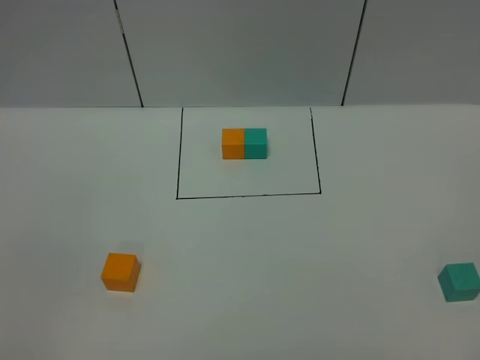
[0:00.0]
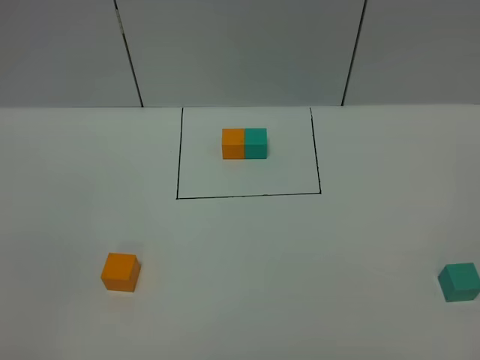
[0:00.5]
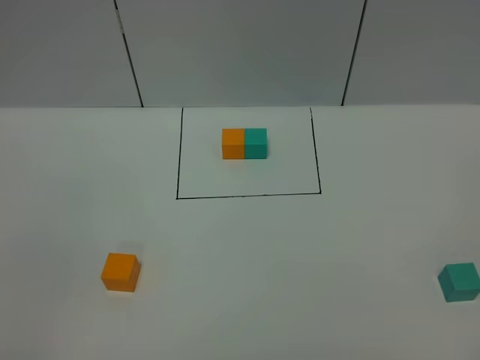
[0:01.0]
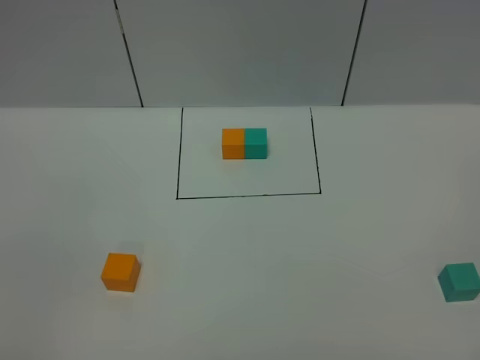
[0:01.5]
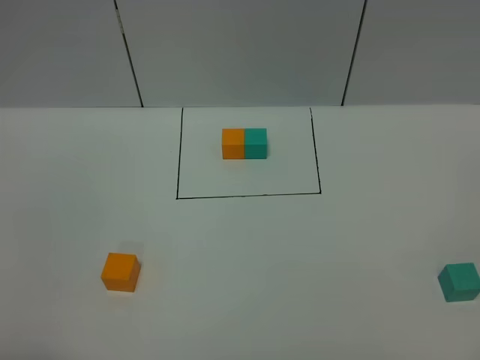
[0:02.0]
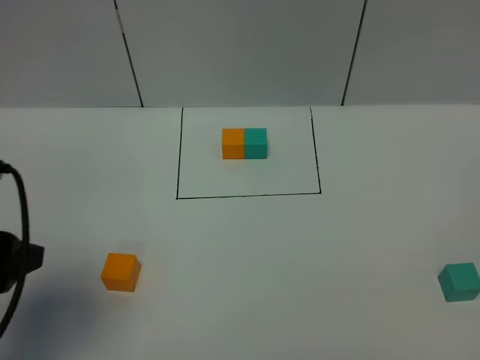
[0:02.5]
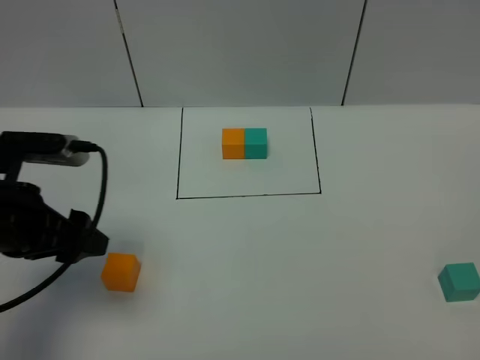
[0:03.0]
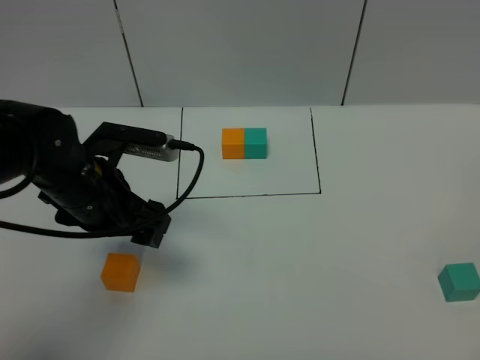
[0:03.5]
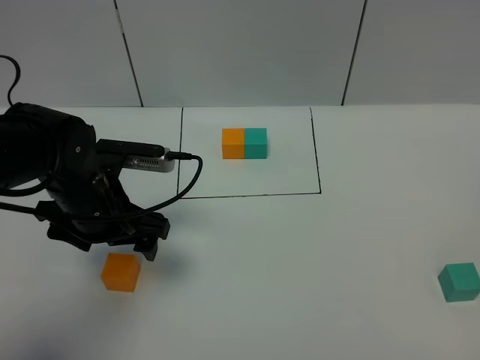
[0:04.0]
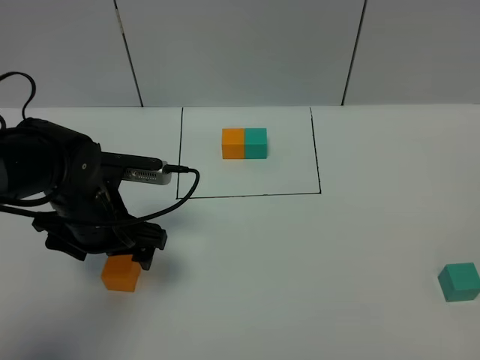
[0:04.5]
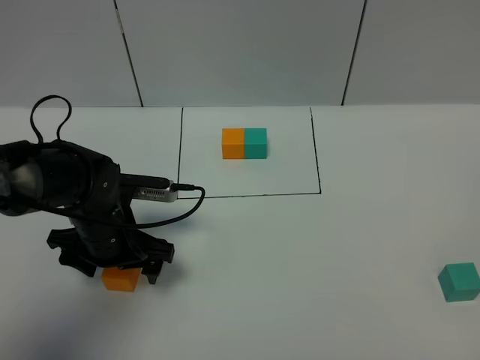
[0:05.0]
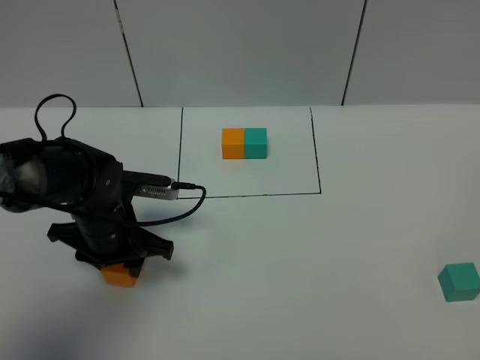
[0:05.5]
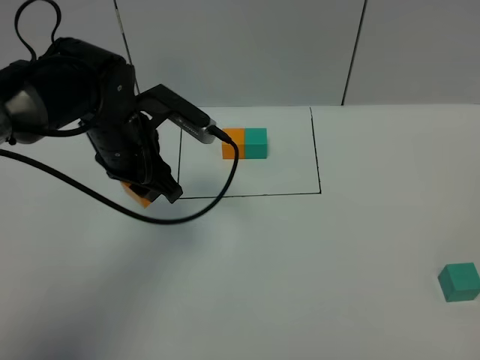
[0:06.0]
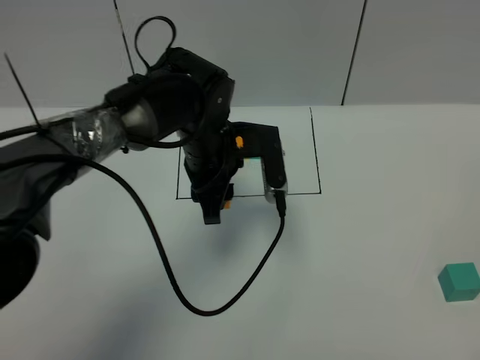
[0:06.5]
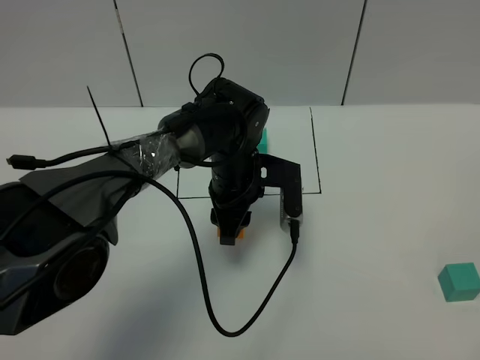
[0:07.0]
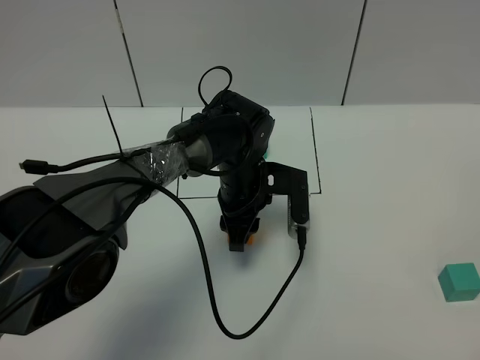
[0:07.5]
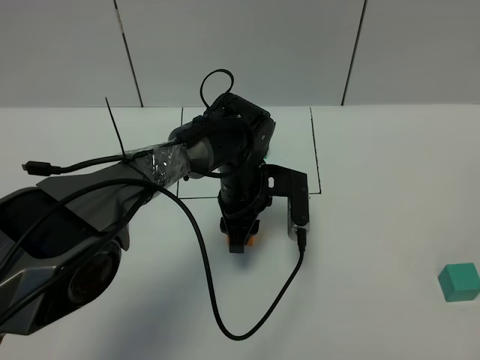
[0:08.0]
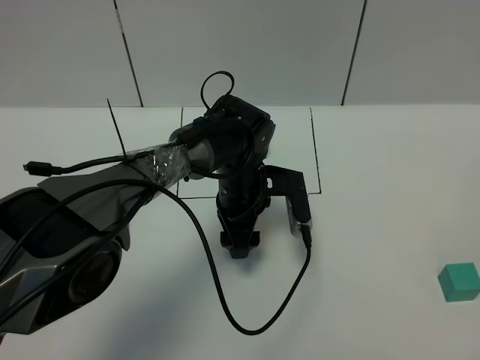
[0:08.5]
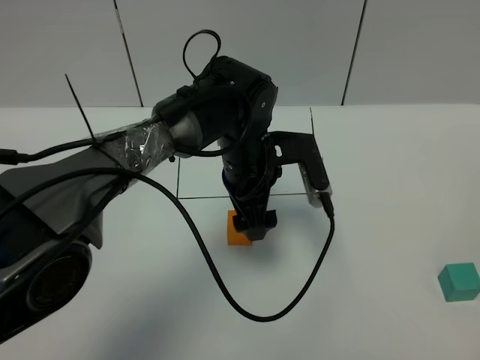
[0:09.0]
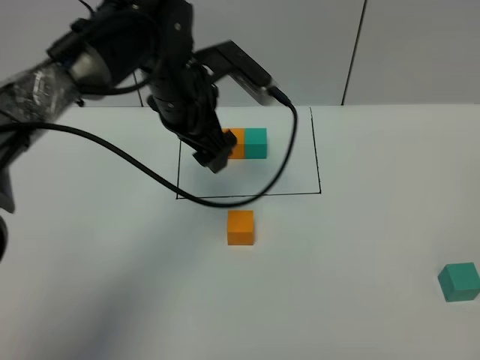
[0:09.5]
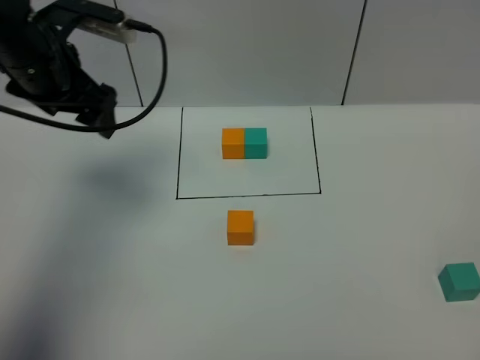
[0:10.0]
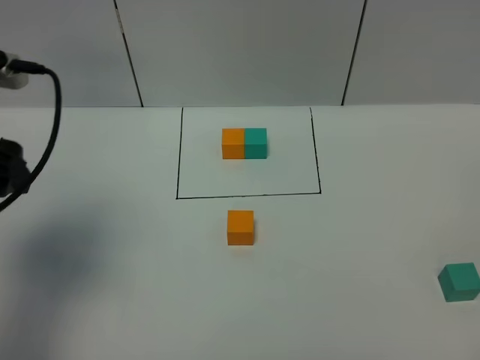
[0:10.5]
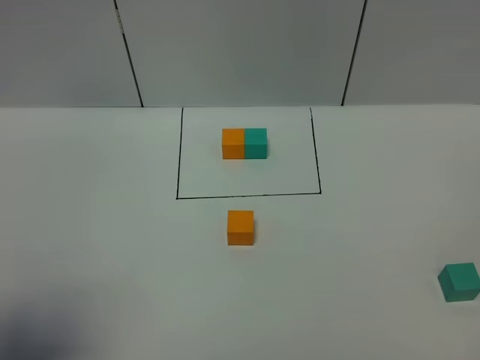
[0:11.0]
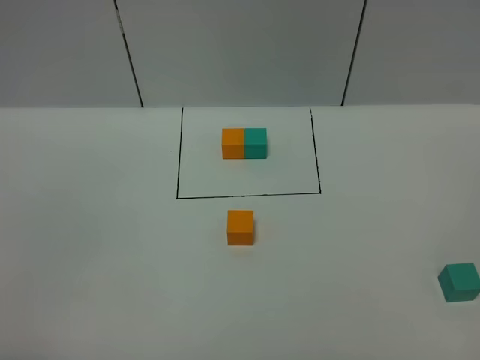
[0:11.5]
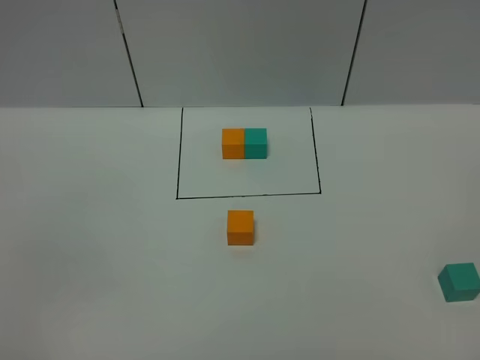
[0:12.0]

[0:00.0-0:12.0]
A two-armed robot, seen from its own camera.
Task of the whole recording: According to the building block template in front, assemble the scattered blocks together.
Step, 0:02.5 to 0:08.5: Put the orange cube in the center of the table.
0:02.0 to 0:04.0: The left gripper shifts some 30 cm forward, to the right and downward.
0:04.0 to 0:06.0: The left gripper heads forward, covering approximately 5 cm, and closes its fingers.
0:06.0 to 0:08.0: The left gripper shifts about 15 cm to the right and downward.
0:08.0 to 0:10.0: The left gripper heads to the left and upward, covering approximately 30 cm, and opens its fingers.
0:10.0 to 0:12.0: The left gripper heads backward, covering some 40 cm.

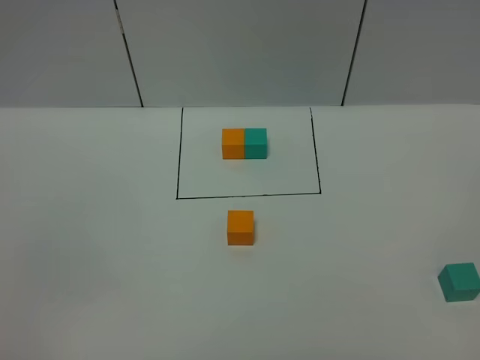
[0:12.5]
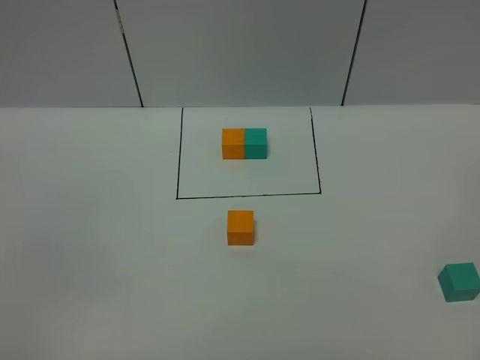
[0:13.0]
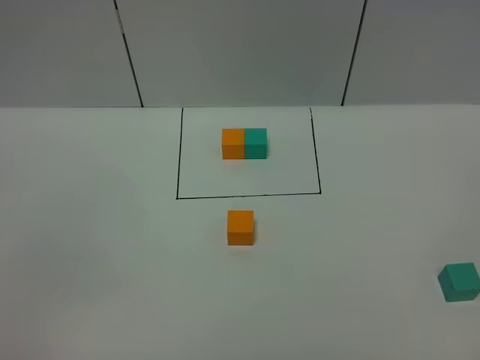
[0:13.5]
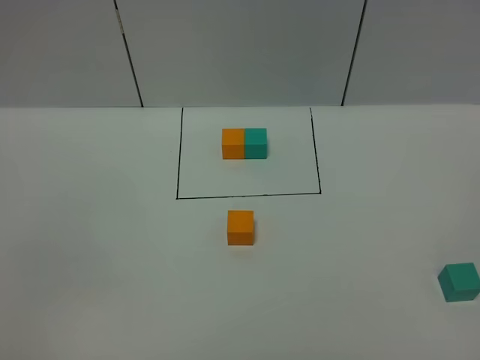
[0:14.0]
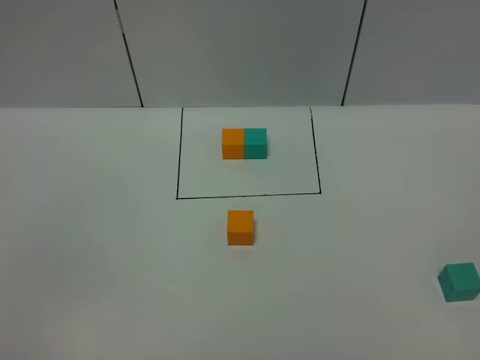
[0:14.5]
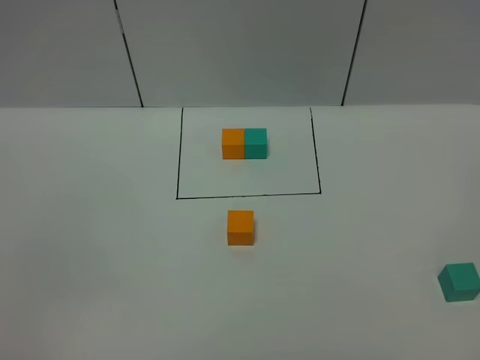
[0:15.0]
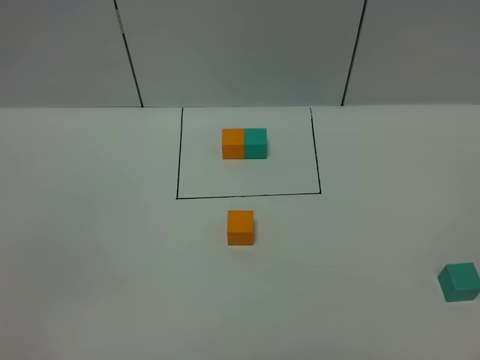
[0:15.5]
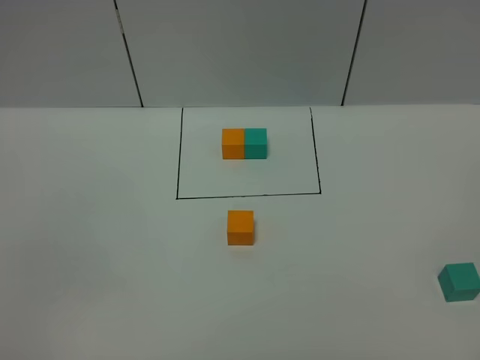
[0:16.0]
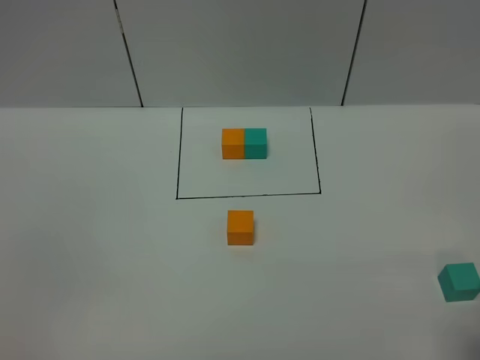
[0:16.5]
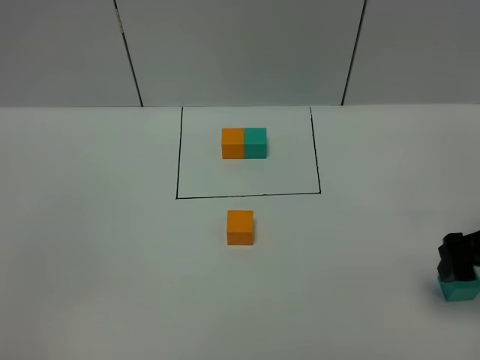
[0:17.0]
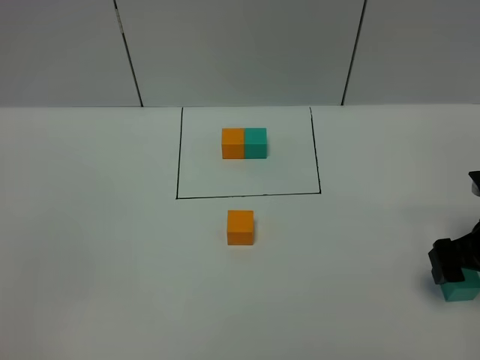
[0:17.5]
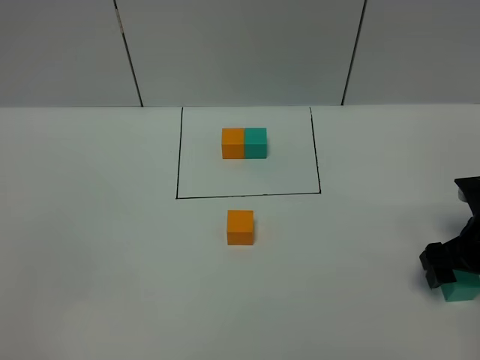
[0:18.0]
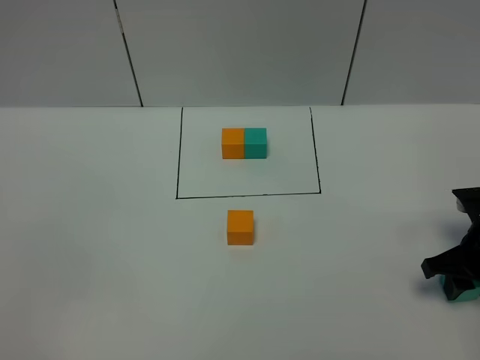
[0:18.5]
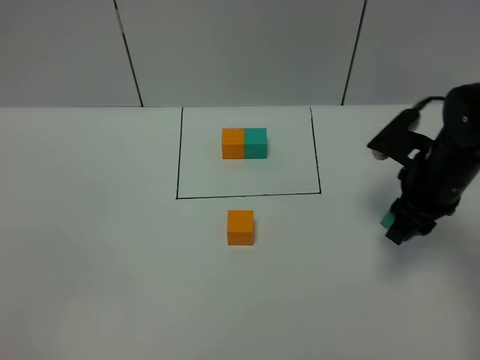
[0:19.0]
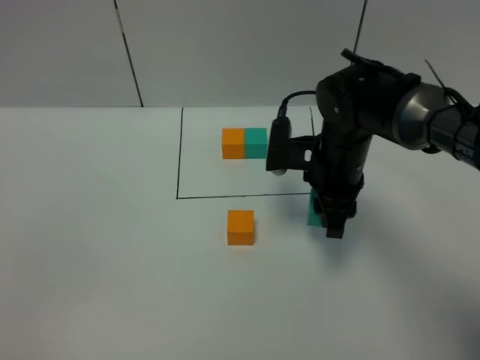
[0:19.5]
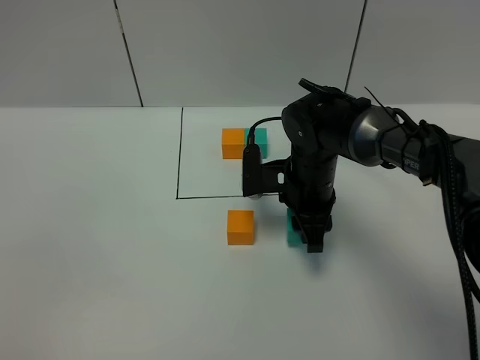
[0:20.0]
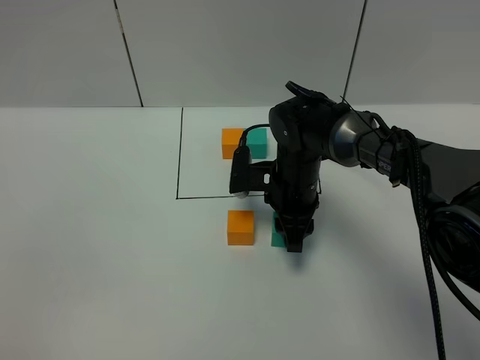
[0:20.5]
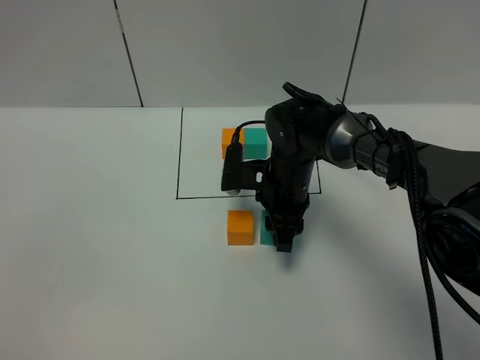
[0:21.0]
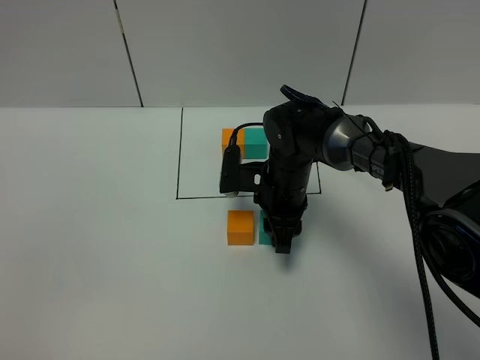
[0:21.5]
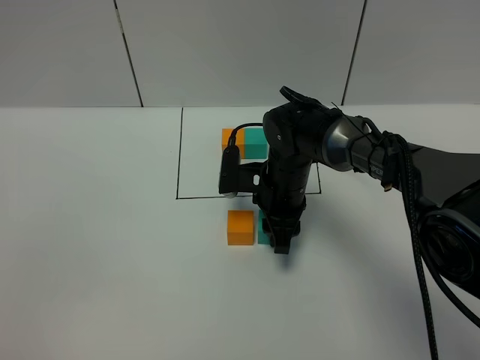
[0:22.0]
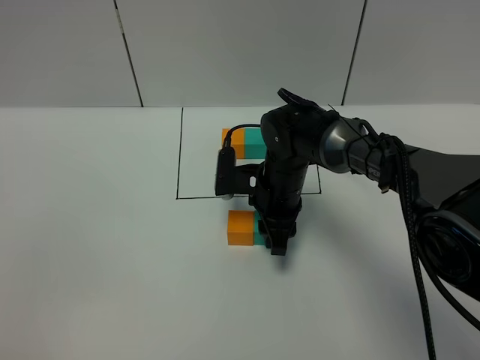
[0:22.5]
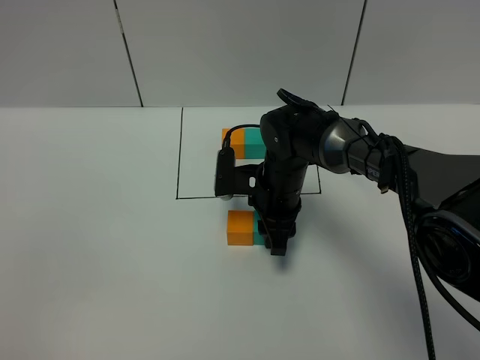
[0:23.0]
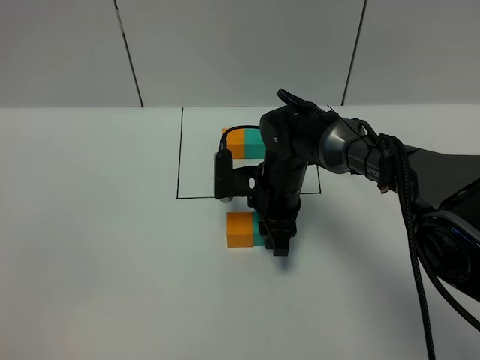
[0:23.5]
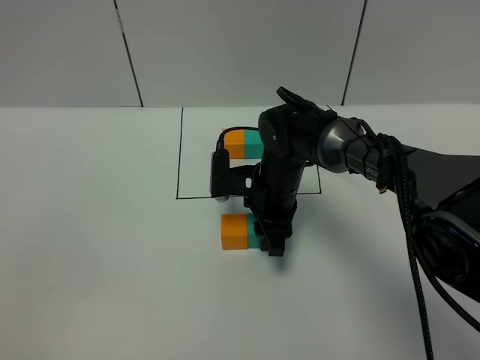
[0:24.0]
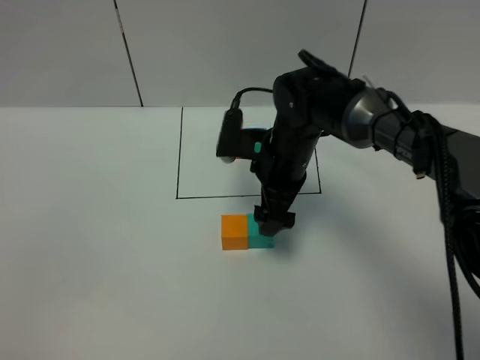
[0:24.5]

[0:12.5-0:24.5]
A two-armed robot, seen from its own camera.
Task of the whole recording: According to the building block template in front, assemble the scattered blocks together.
Step, 0:12.5 to 0:24.0: Put the green cube on the right of the orange cube.
0:12.5 to 0:14.5: Neither gripper changes place.
0:16.5 to 0:18.5: The right gripper travels downward and forward by roughly 20 cm, and closes.
0:18.5 to 0:20.5: The right gripper goes some 25 cm to the left and forward.
0:20.5 to 0:22.5: The grippers move only a little.
0:22.5 to 0:24.5: The right gripper shifts about 5 cm upward, and opens up.

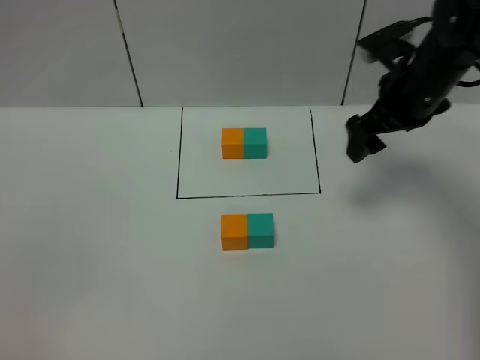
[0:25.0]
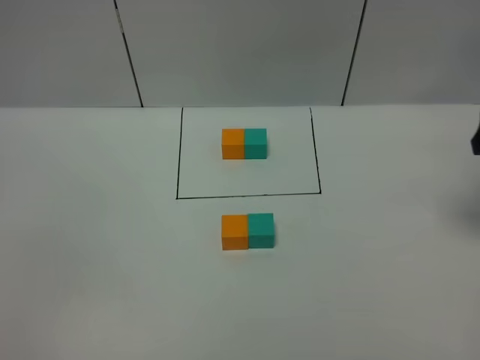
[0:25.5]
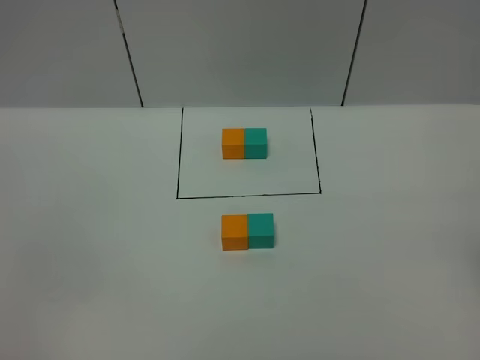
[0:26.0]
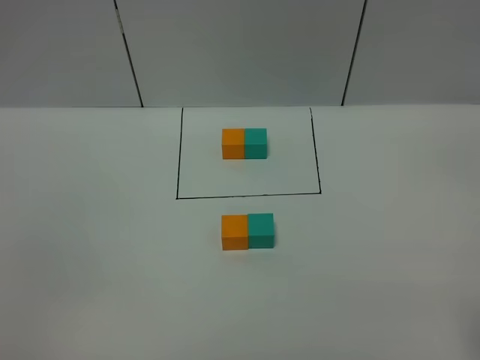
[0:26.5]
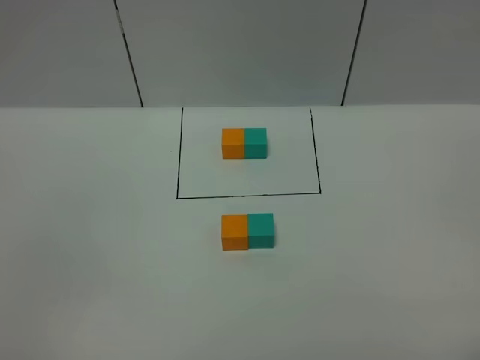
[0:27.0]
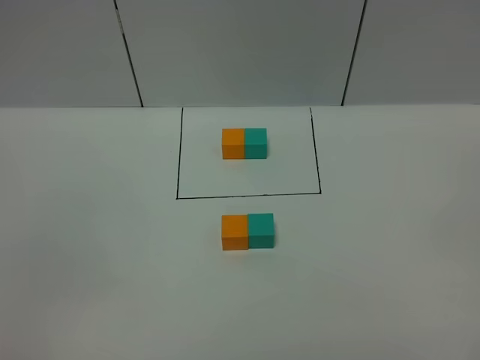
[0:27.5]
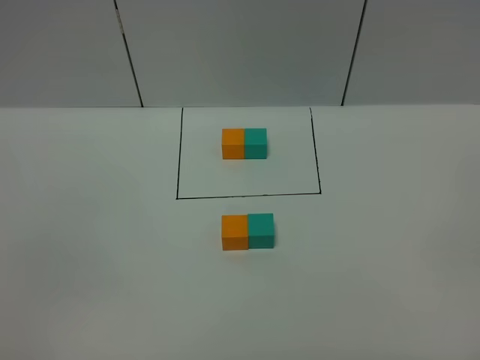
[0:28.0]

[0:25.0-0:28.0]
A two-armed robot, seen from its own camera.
Task of the whole recording: According to the building block template in front, assemble the scattered blocks together.
0:25.0 to 0:26.5: The right gripper travels backward by approximately 30 cm.
